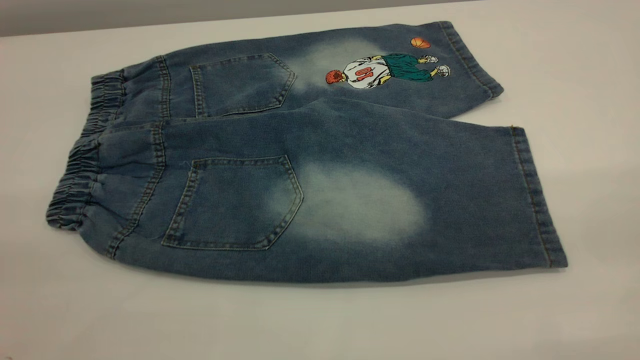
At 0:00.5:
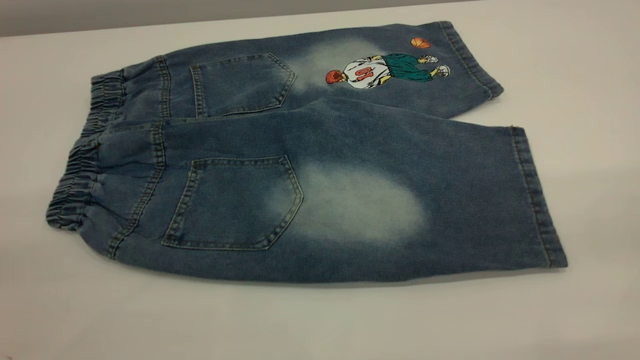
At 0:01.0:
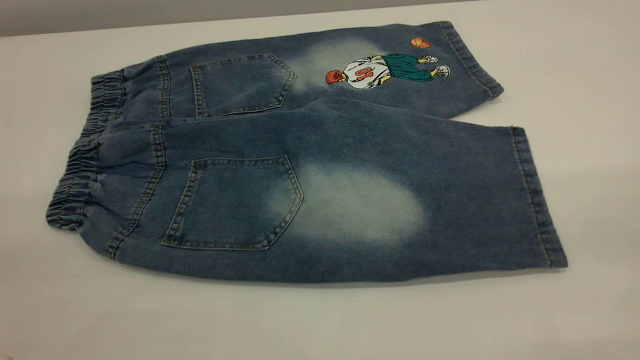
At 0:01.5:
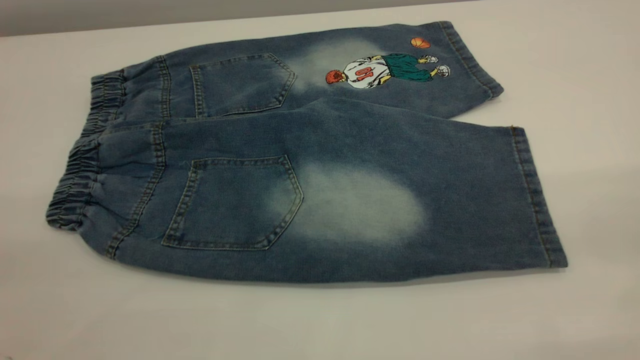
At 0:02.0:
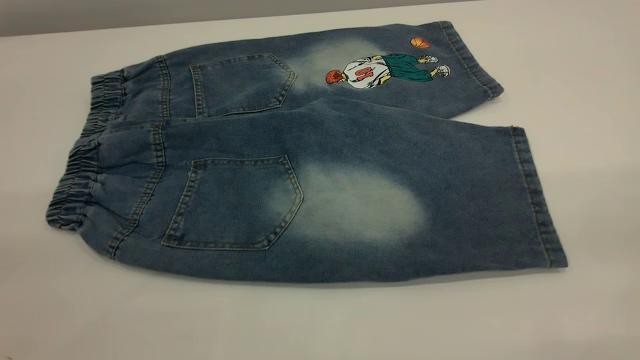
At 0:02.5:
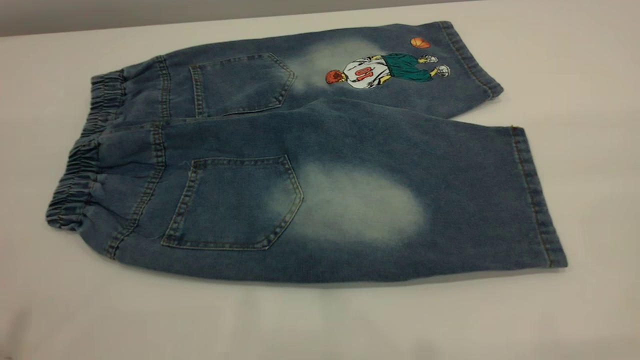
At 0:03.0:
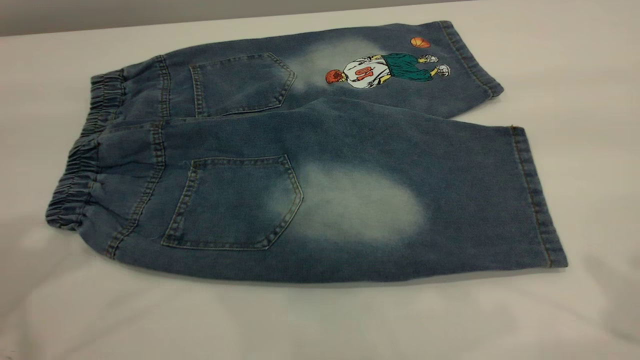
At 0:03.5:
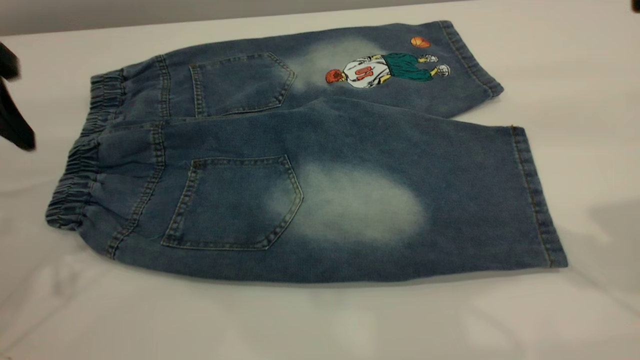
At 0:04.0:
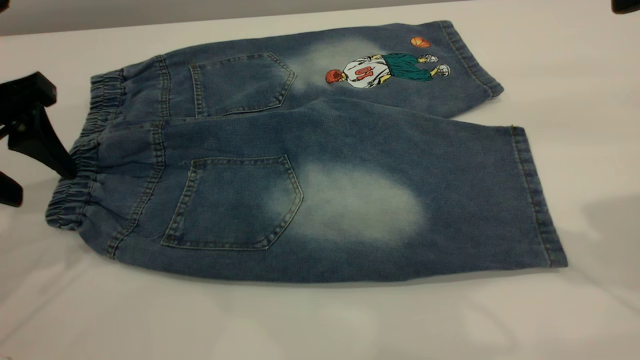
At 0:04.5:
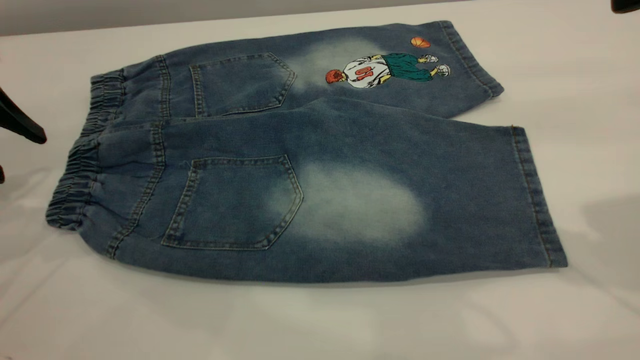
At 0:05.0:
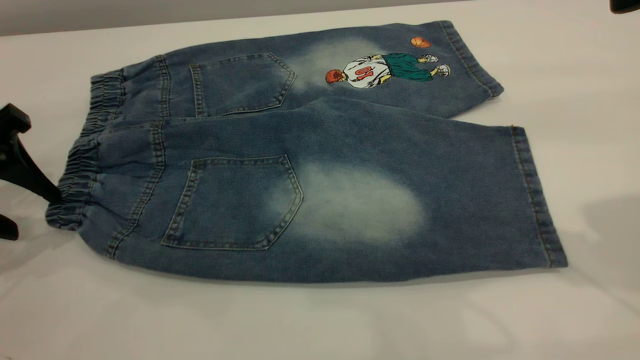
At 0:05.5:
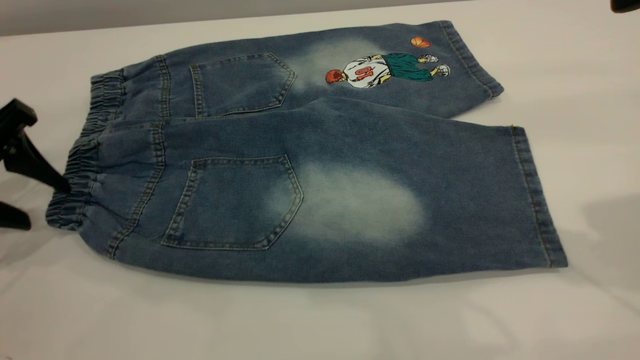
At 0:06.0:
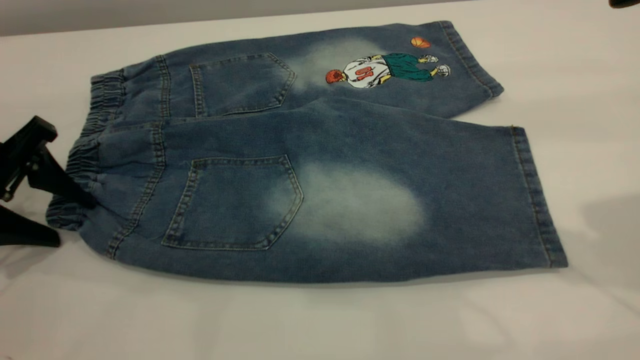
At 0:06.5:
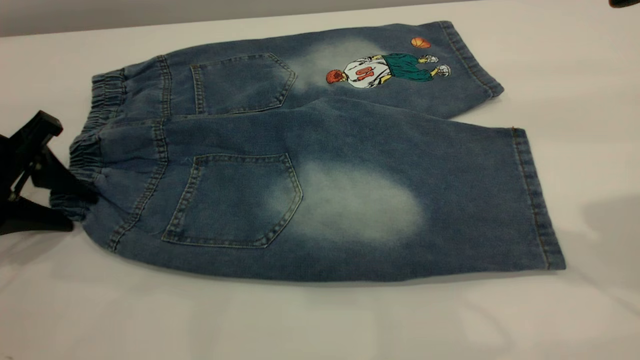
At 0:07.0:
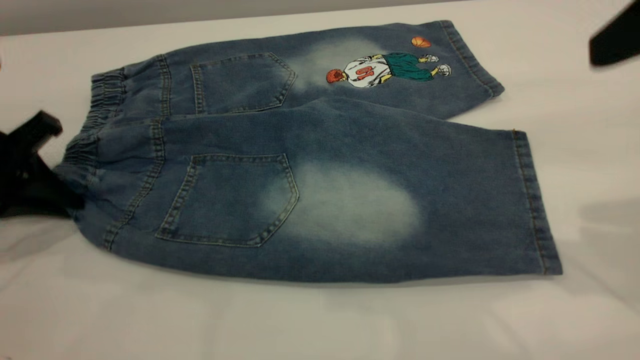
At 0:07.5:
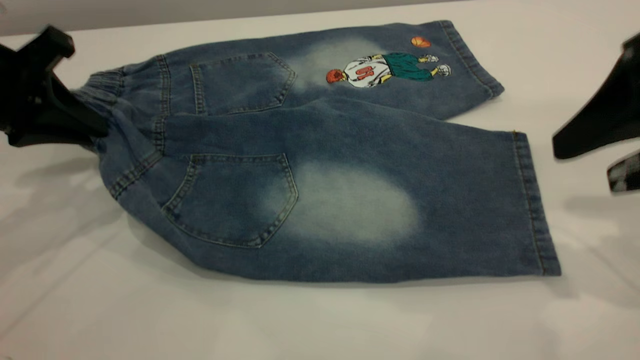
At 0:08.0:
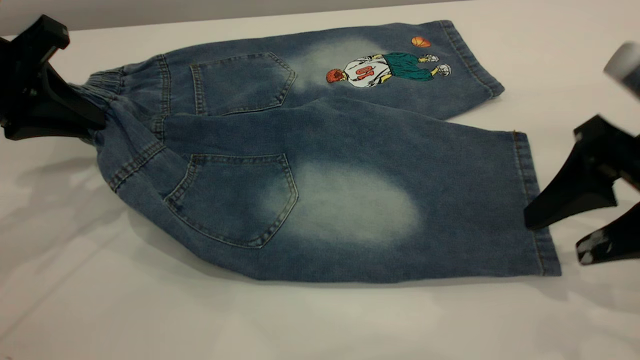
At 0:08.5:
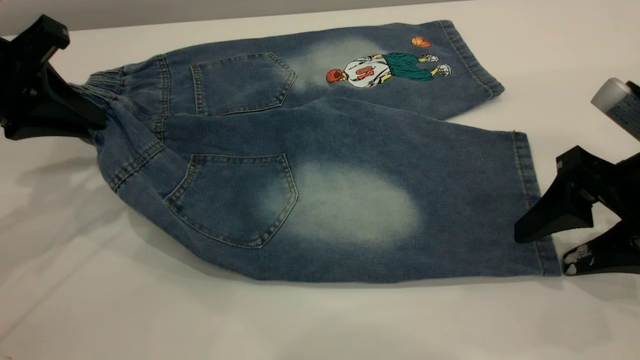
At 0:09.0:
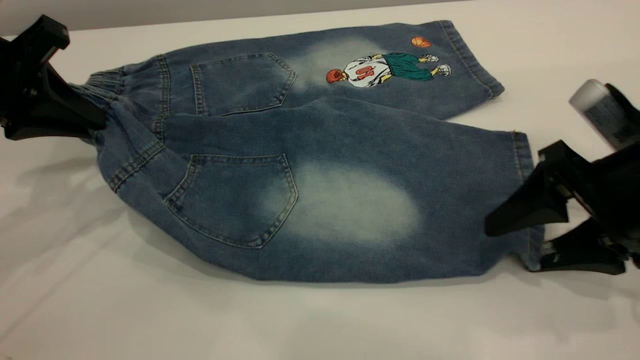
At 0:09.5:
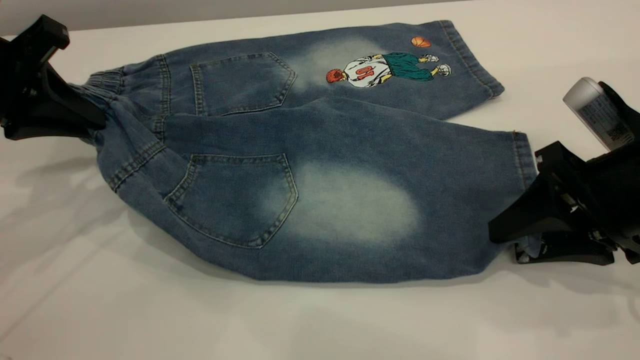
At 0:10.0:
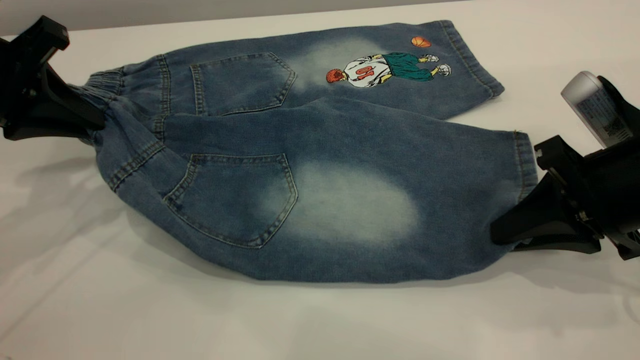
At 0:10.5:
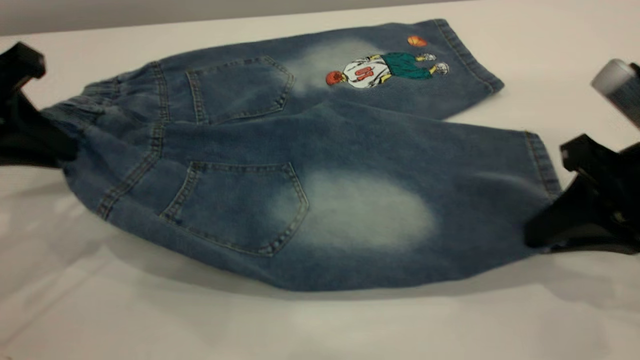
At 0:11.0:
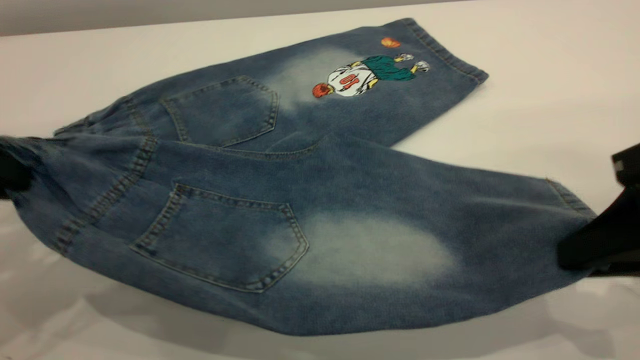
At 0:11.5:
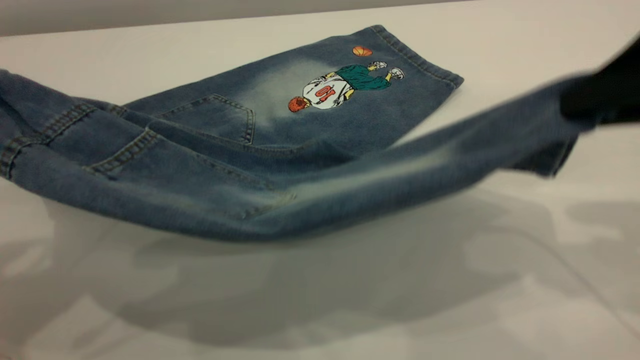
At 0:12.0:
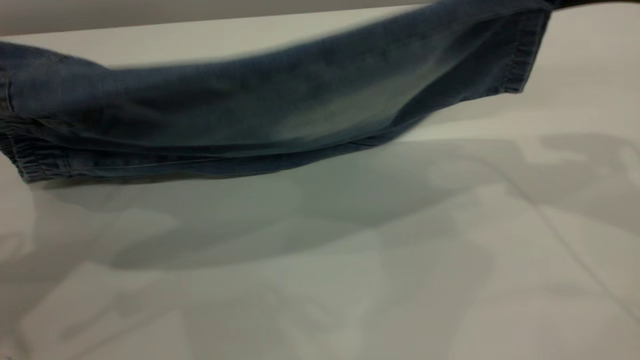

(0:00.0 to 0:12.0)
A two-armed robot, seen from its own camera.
0:00.0 - 0:02.0: Both grippers stay put.
0:02.0 - 0:04.0: The left gripper is displaced forward and downward by roughly 30 cm.
0:04.0 - 0:06.0: The left gripper moves downward, roughly 10 cm.
0:06.0 - 0:08.0: The left gripper travels upward by approximately 10 cm, and closes its fingers; the right gripper heads downward, covering approximately 15 cm.
0:08.0 - 0:10.0: The right gripper closes up.
0:10.0 - 0:12.0: The left gripper heads backward and upward, covering roughly 15 cm. The right gripper goes about 15 cm upward.

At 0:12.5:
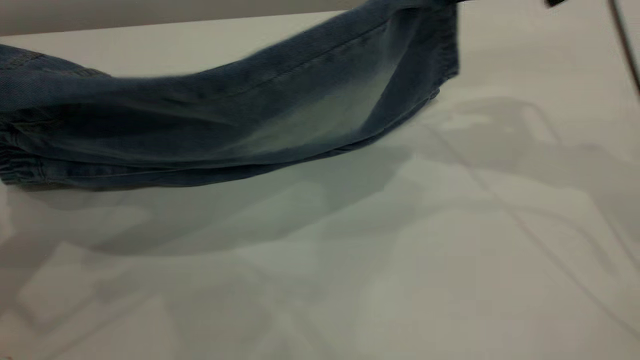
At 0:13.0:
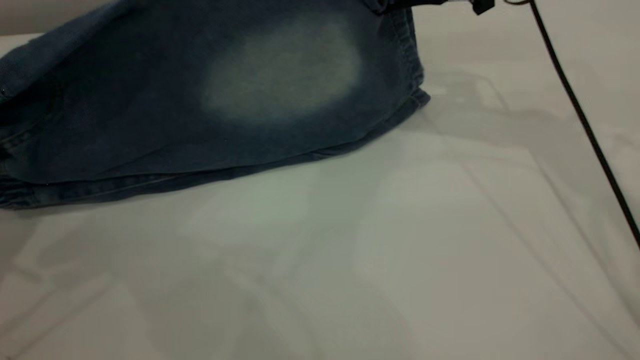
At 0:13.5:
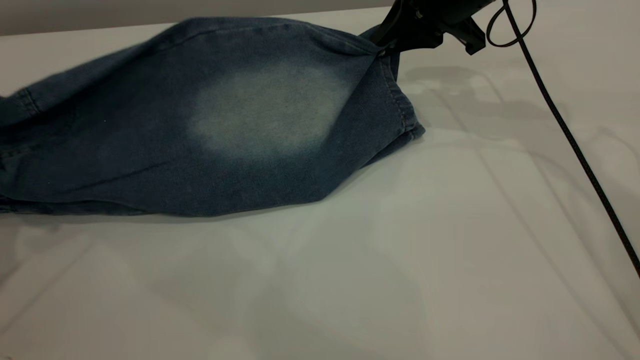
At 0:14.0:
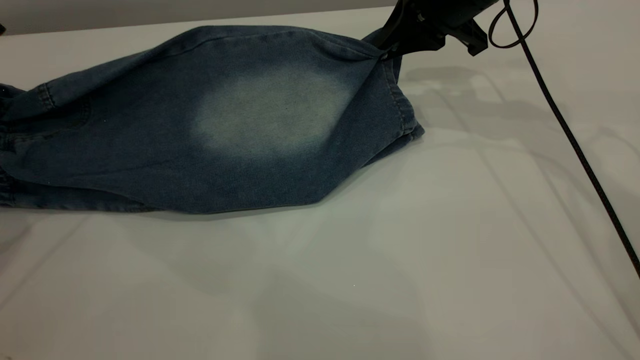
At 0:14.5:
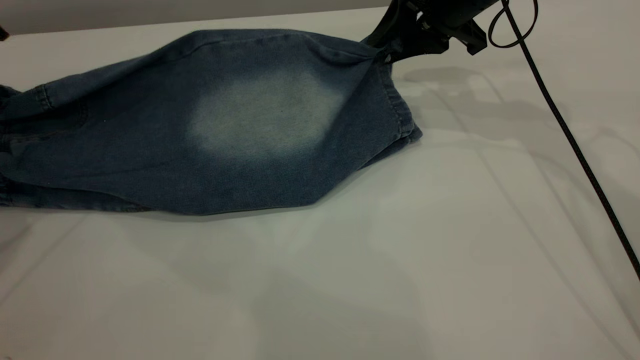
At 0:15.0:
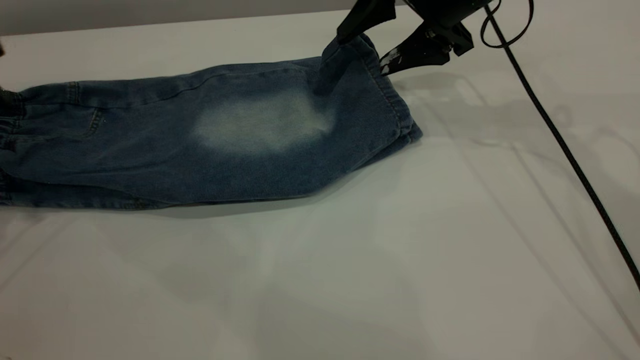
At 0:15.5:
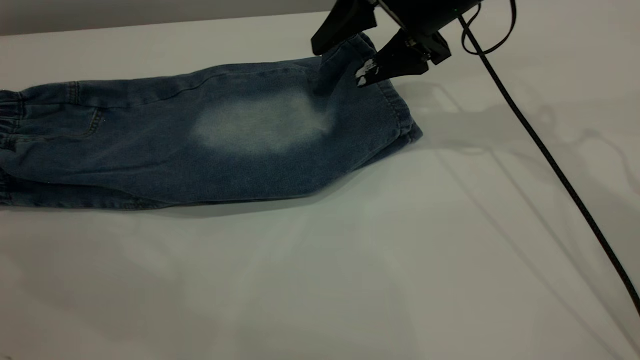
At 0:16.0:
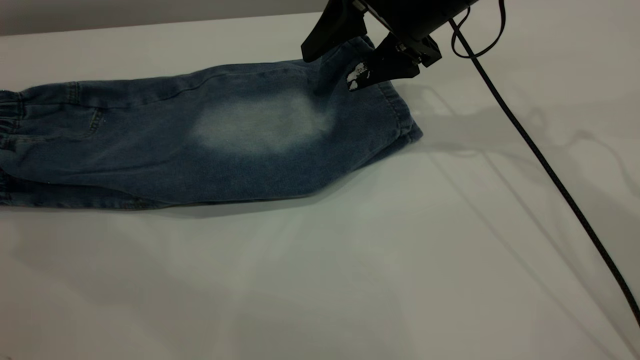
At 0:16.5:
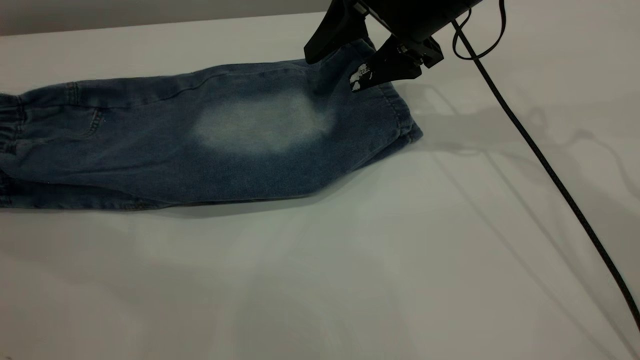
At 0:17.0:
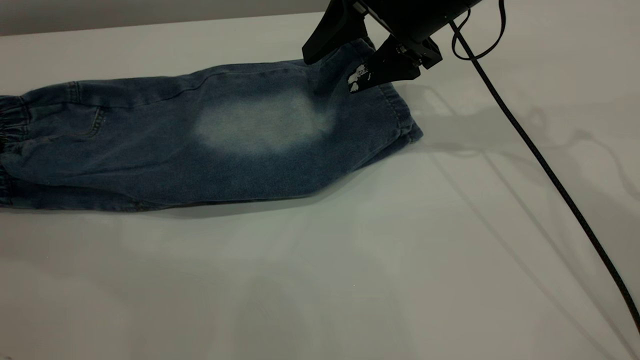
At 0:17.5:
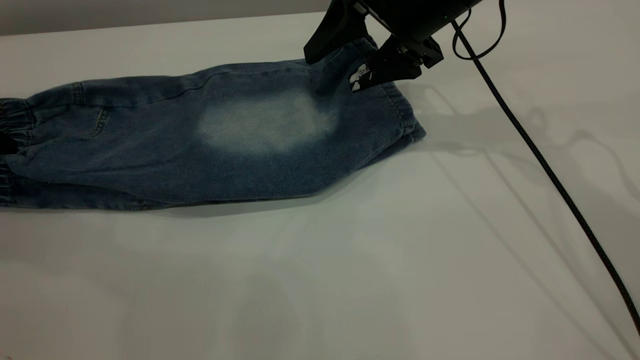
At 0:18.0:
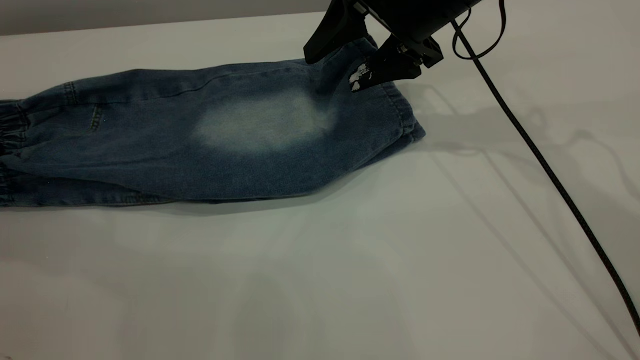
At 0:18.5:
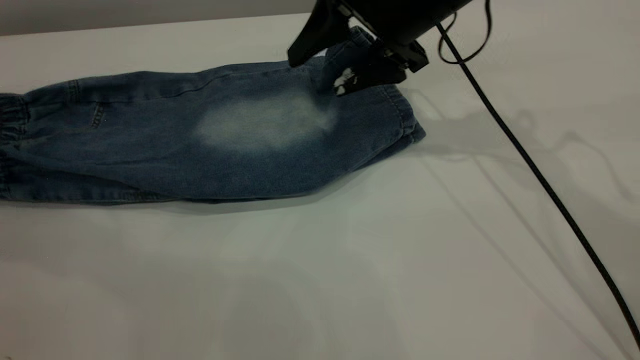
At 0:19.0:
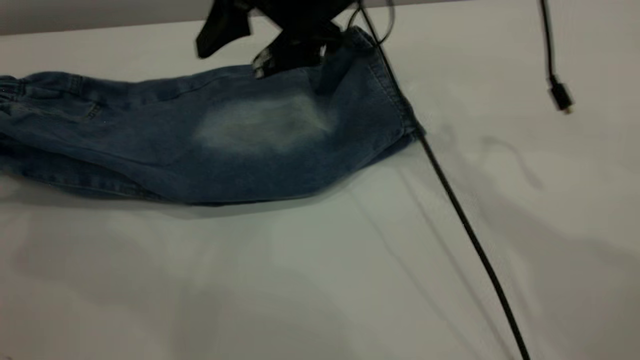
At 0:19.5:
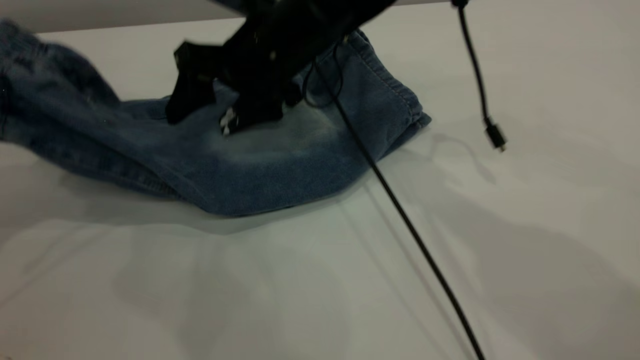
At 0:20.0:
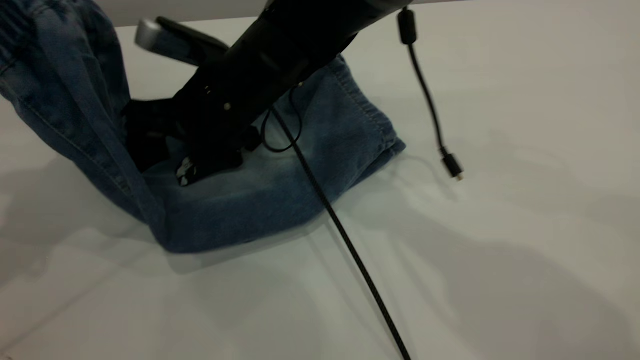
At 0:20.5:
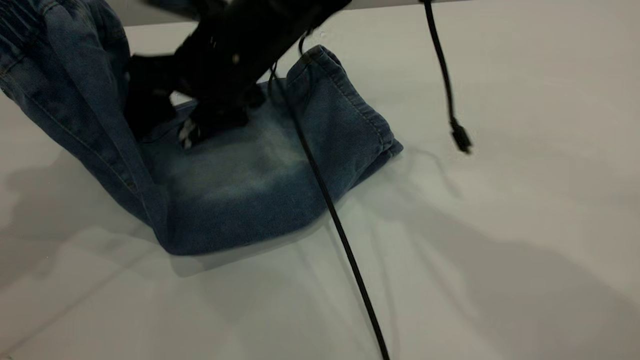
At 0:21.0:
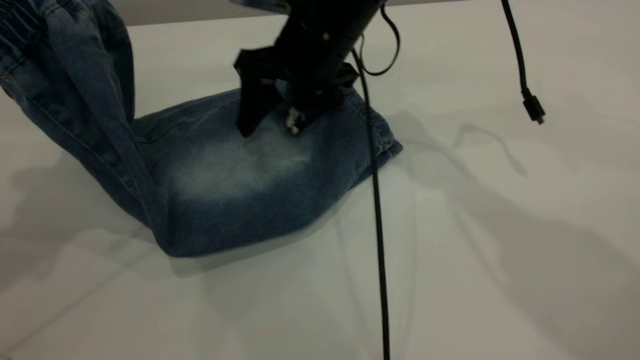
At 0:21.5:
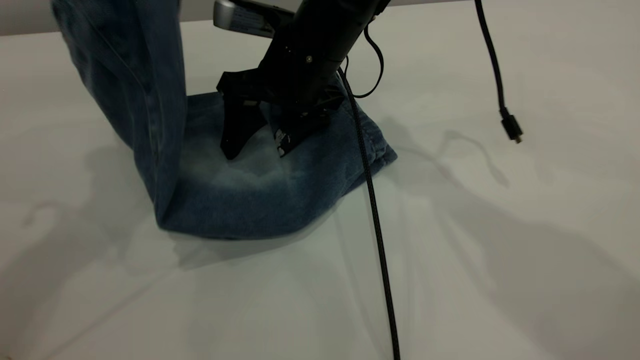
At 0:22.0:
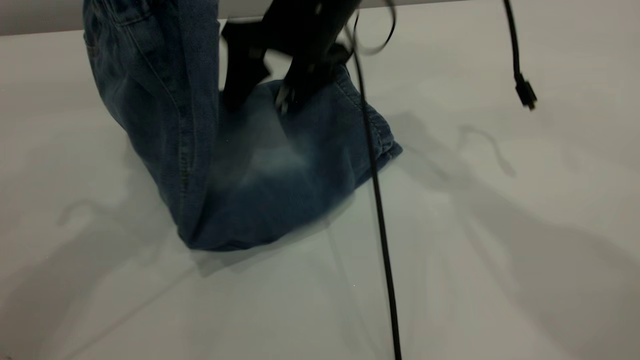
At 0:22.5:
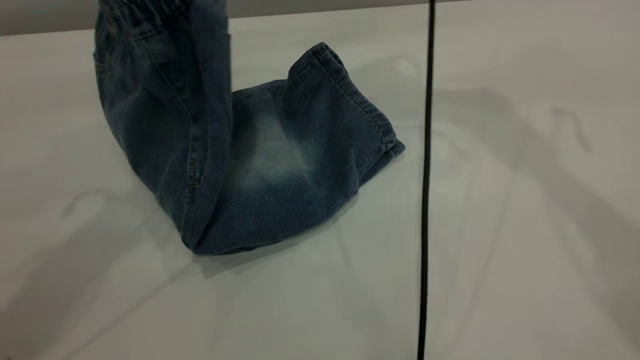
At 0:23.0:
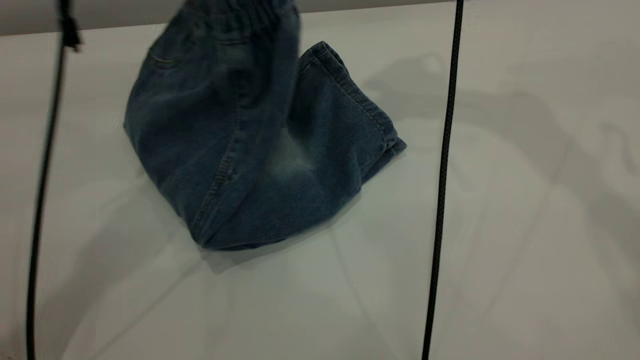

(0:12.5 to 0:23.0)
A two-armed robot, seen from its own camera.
Step, 0:12.5 - 0:15.5: Fold the bottom of the pants upward.
0:12.5 - 0:14.5: The right gripper is displaced downward and forward by some 10 cm, and opens. Meanwhile the left gripper moves forward and downward, approximately 15 cm.
0:14.5 - 0:16.5: The right gripper opens, while the left gripper shifts roughly 10 cm to the left, and opens.
0:16.5 - 0:19.0: The right gripper shifts roughly 10 cm to the left; the left gripper moves roughly 5 cm, and closes its fingers.
0:19.0 - 0:21.0: The right gripper moves approximately 10 cm to the left and comes back. Meanwhile the left gripper goes approximately 15 cm to the right and upward.
0:21.0 - 0:23.0: The right gripper goes about 25 cm upward and to the right. The left gripper shifts approximately 20 cm to the right and forward.
